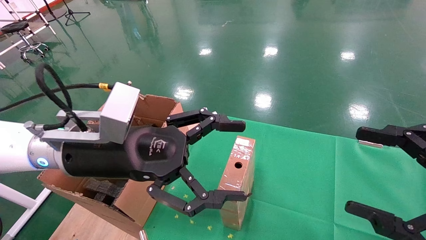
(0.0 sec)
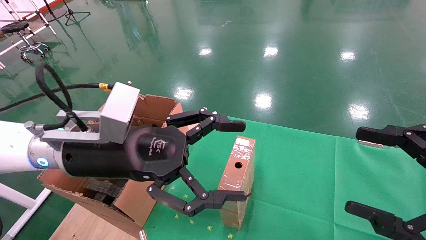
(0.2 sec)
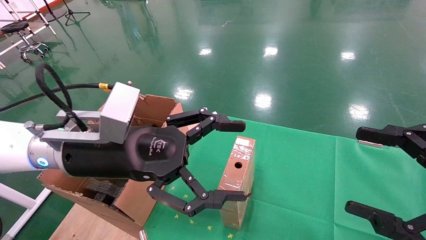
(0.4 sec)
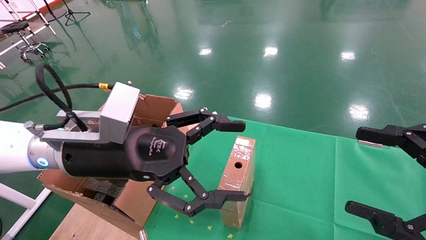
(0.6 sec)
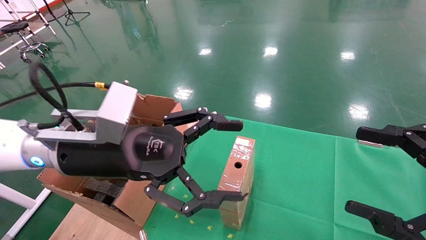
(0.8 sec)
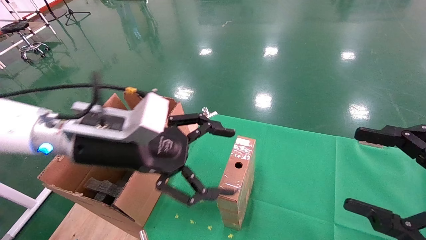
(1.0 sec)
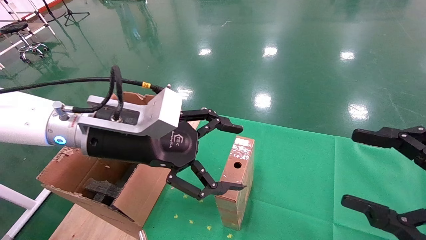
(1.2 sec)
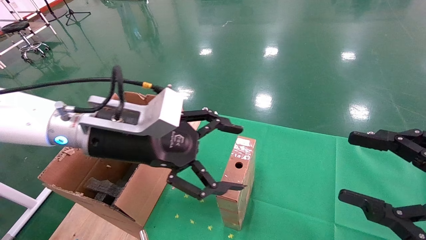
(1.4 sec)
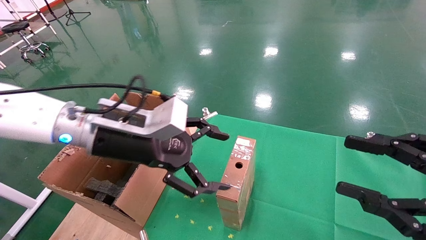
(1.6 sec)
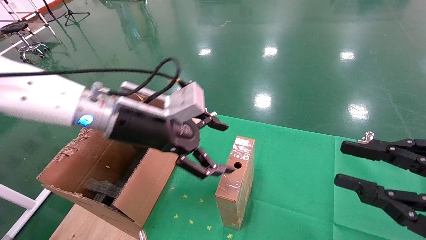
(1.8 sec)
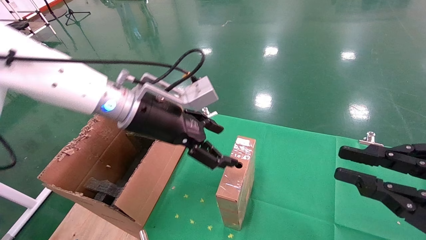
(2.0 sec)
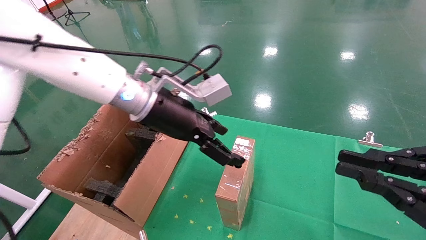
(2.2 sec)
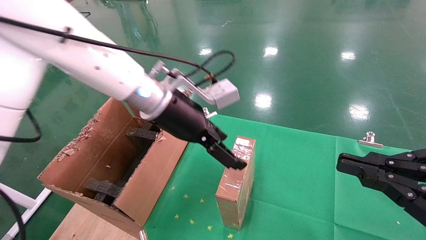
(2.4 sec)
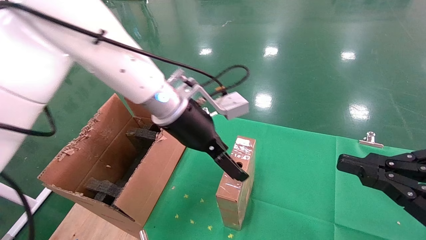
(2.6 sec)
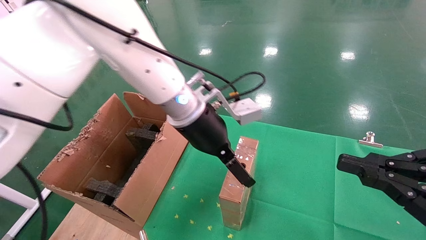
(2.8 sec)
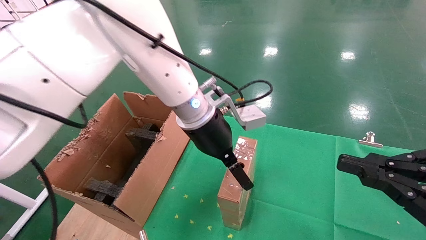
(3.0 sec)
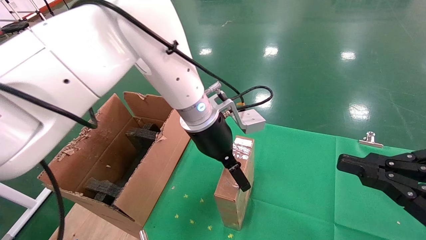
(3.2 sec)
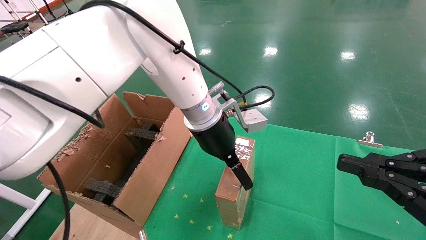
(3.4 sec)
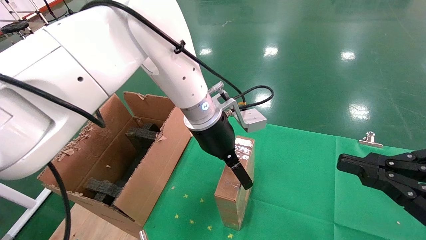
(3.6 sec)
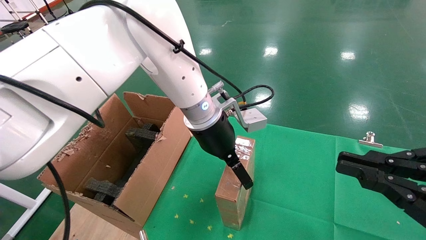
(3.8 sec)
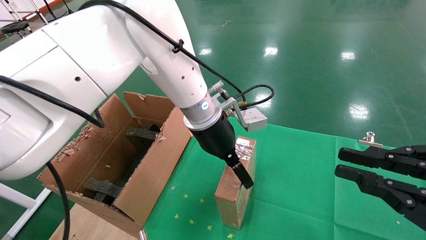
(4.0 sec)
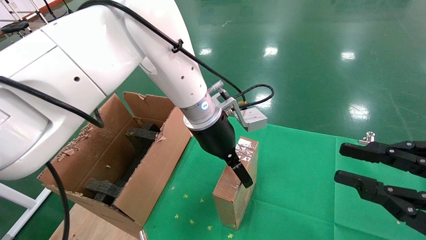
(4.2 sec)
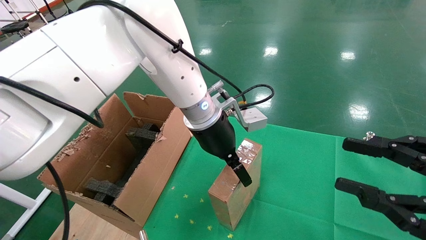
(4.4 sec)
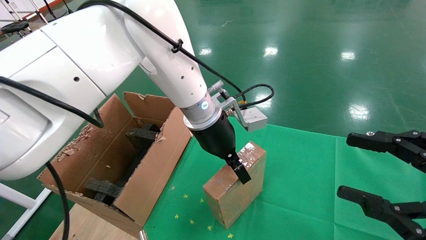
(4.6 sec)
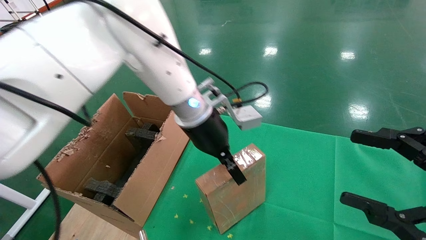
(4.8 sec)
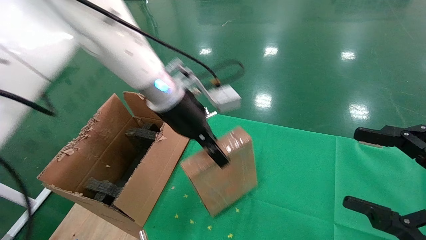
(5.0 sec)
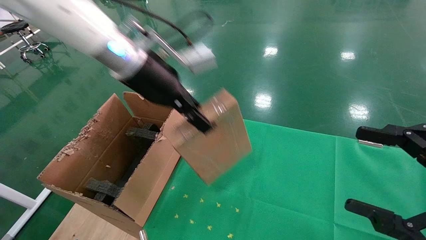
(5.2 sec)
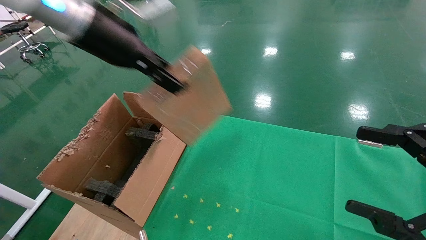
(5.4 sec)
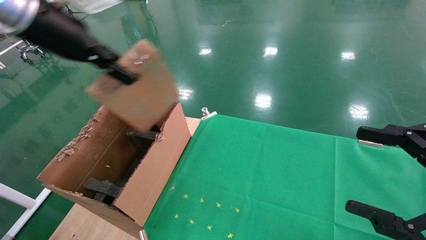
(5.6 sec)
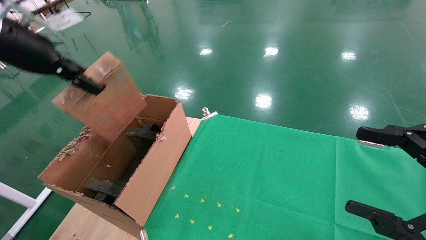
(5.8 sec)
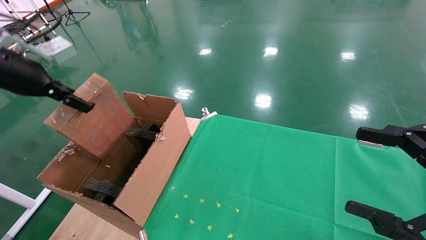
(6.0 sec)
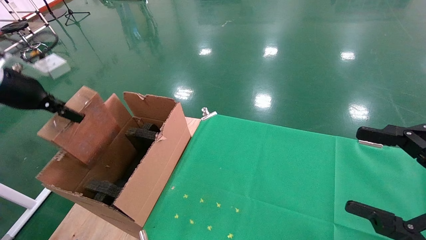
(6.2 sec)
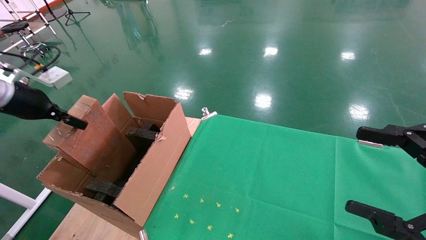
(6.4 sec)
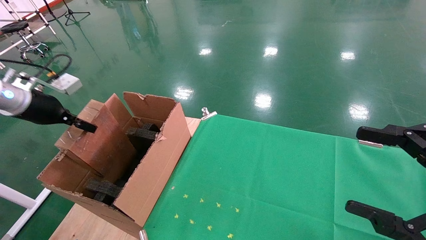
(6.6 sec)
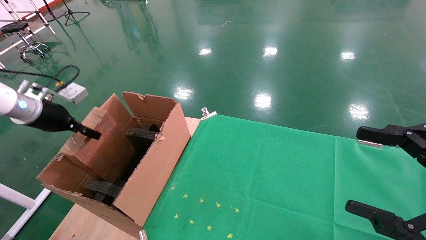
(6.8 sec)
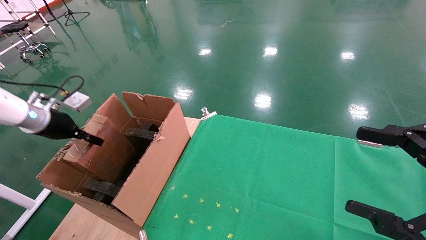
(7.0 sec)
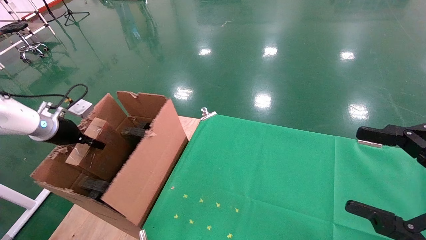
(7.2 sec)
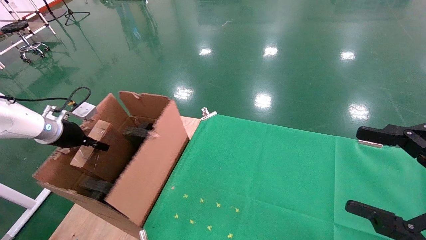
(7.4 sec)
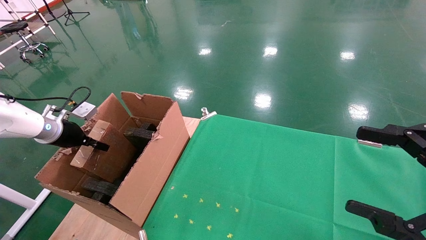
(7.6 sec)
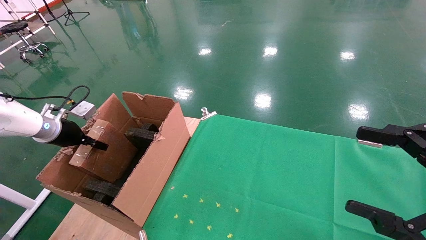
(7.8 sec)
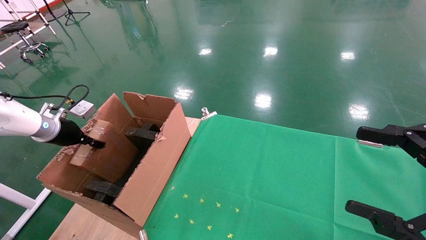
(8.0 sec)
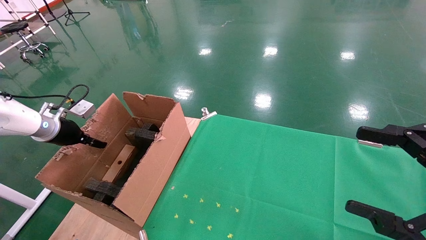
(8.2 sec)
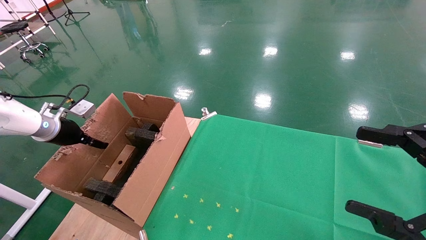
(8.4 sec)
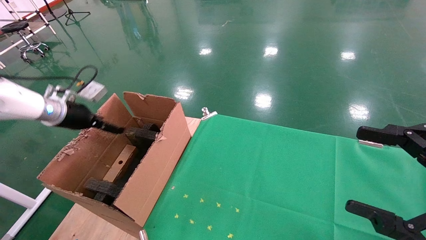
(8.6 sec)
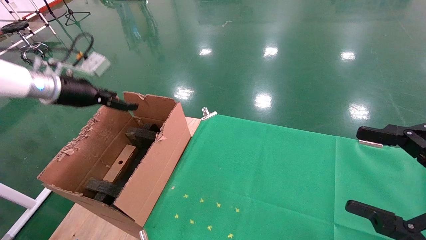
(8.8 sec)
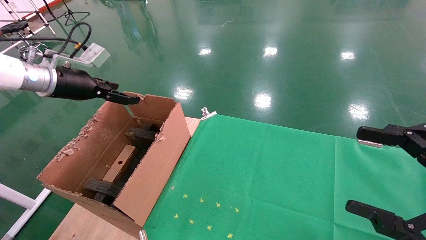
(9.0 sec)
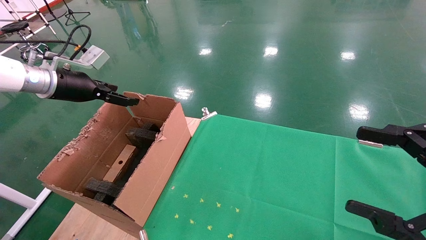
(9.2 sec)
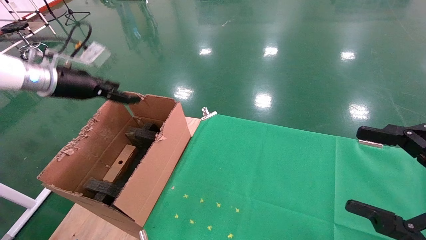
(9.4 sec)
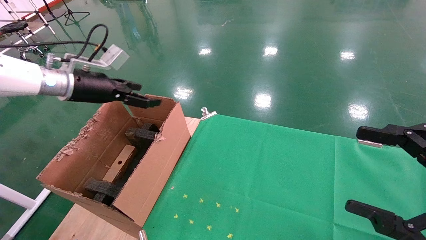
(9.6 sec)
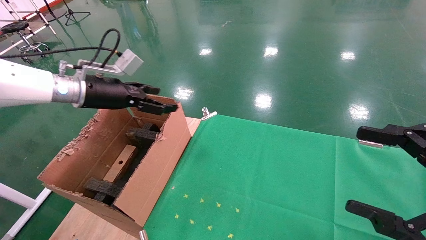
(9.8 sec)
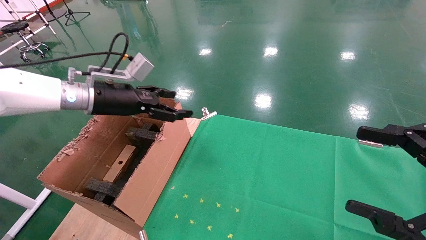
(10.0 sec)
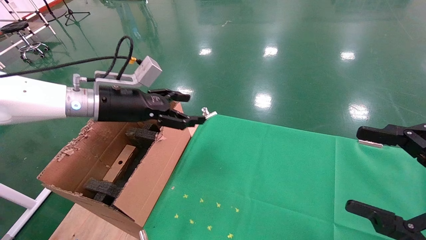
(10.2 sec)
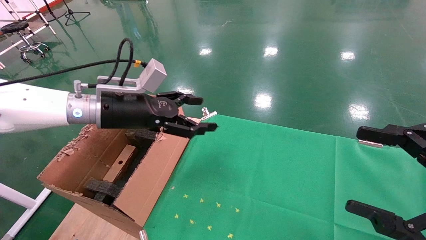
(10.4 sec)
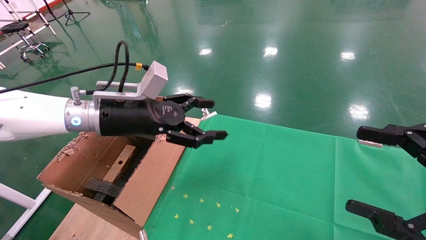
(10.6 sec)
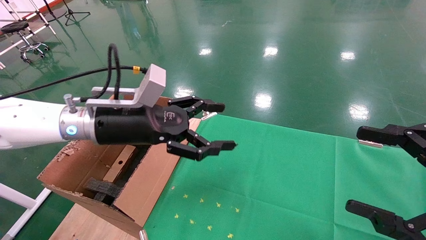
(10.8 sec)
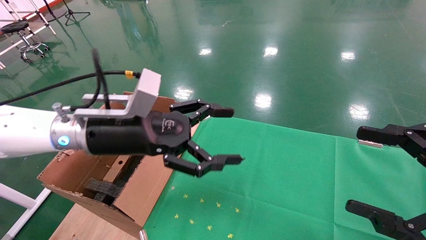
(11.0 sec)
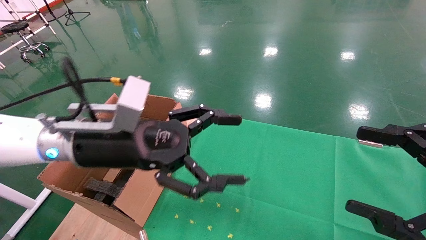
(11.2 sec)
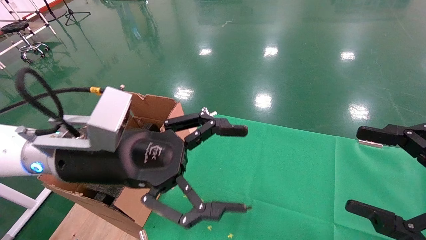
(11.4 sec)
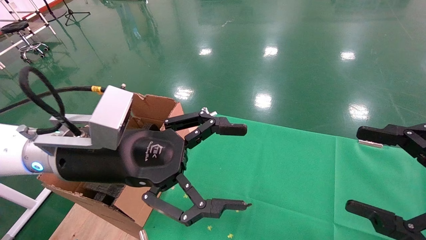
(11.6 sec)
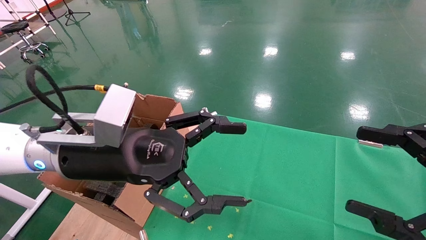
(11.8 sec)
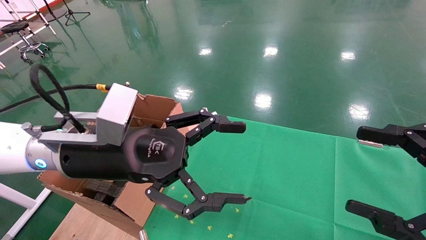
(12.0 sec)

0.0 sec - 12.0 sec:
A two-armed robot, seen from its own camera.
Task of the whole recording: using a robotic arm to pick up a cardboard box and palace it the carton.
Step, 1.0 sec - 4.6 sec: Pick up the mouse and the power cord paper box.
Step, 4.8 sec - 8.0 sec: Place the mouse and the power cord paper box into the container.
0.0 sec - 1.6 sec: The right gripper closes its fingers. Meanwhile the left gripper ends up some 5 cm from where it was.
1.6 sec - 3.0 sec: The left gripper moves to the right and forward, some 15 cm, while the right gripper closes up.
4.4 sec - 6.0 sec: The left gripper is displaced to the left by roughly 35 cm, and closes its fingers. Meanwhile the right gripper opens.
6.0 sec - 7.6 sec: The left gripper travels downward and forward by approximately 20 cm.
7.6 sec - 9.0 sec: The left gripper shifts approximately 15 cm upward and to the right, and opens its fingers.
9.0 sec - 10.4 sec: The left gripper goes approximately 15 cm to the right.
10.4 sec - 12.0 sec: The left gripper goes some 15 cm backward and to the right.

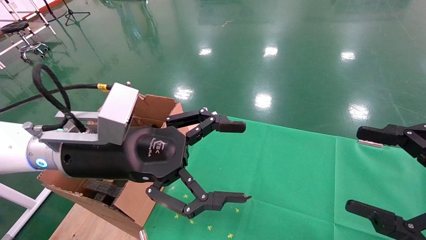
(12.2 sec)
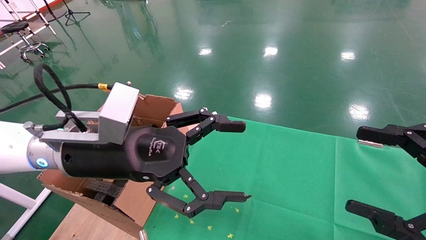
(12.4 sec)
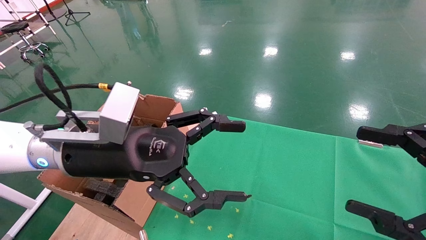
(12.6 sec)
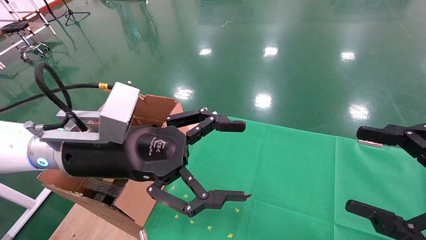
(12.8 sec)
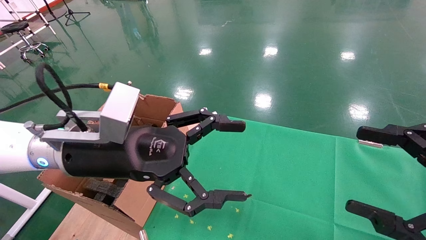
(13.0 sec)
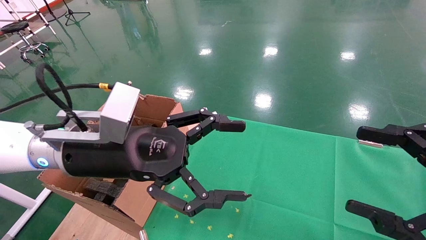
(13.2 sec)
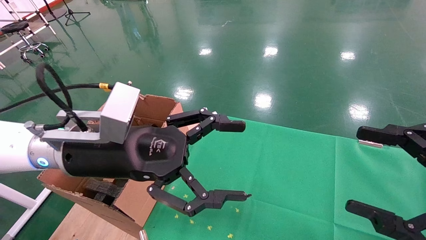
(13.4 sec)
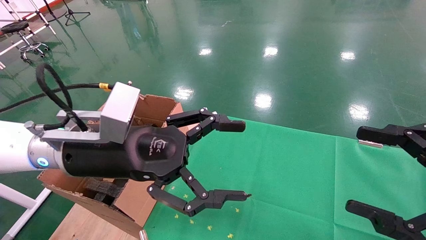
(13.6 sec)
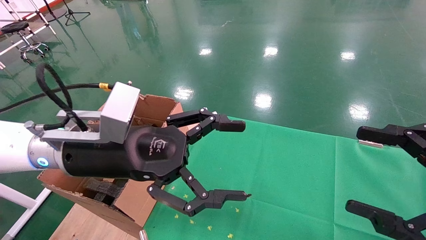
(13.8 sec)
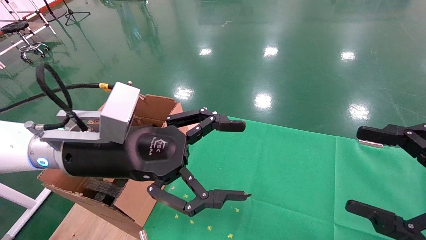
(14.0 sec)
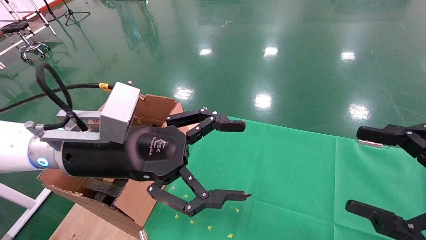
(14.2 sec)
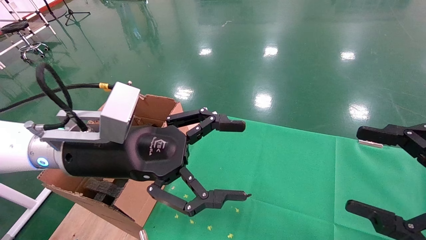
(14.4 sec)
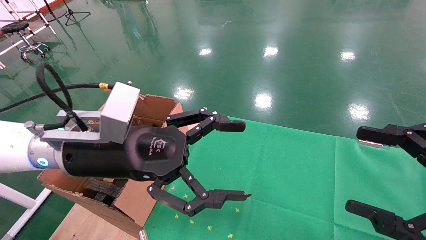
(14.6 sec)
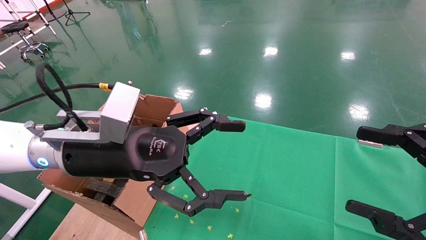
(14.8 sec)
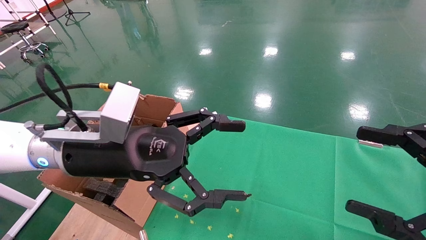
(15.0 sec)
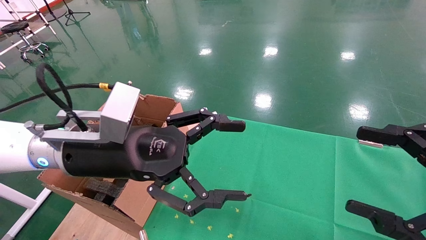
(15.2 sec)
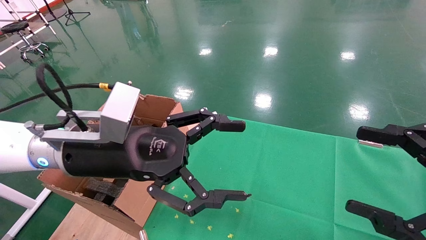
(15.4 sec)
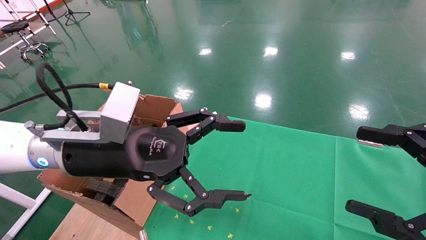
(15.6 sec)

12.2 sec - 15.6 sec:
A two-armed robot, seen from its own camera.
Task of the whole recording: using a robotic arm to pick up a cardboard box and palace it the carton.
12.2 sec - 15.6 sec: Neither gripper changes place.
